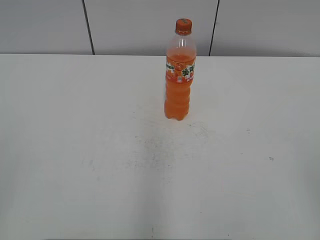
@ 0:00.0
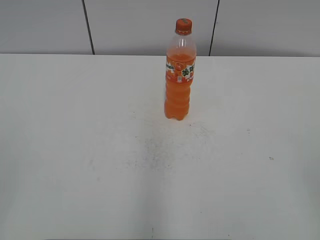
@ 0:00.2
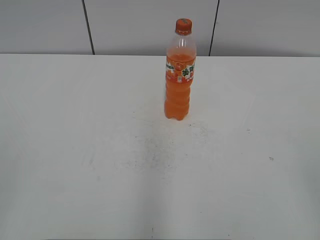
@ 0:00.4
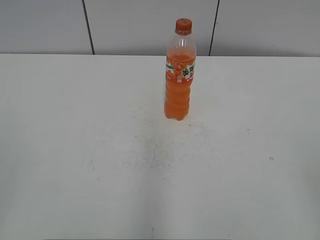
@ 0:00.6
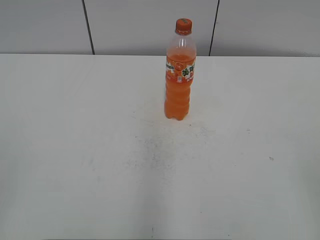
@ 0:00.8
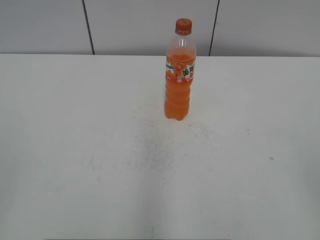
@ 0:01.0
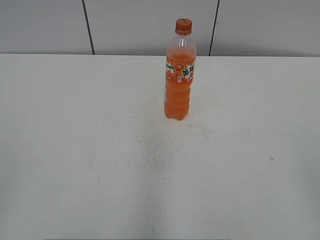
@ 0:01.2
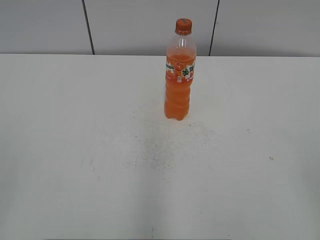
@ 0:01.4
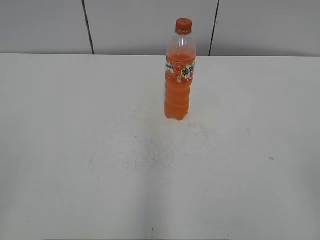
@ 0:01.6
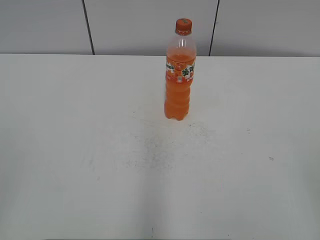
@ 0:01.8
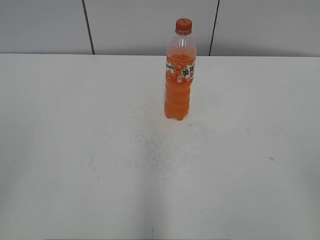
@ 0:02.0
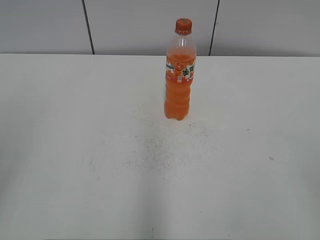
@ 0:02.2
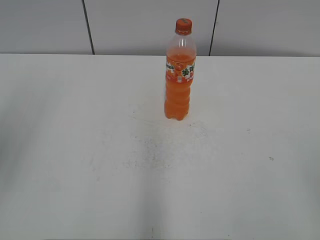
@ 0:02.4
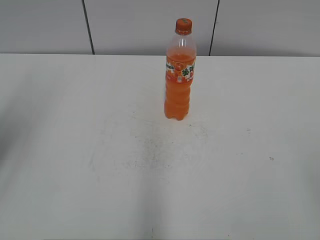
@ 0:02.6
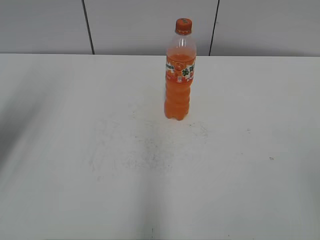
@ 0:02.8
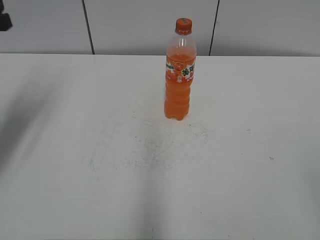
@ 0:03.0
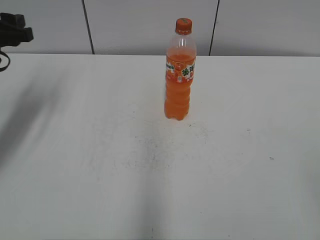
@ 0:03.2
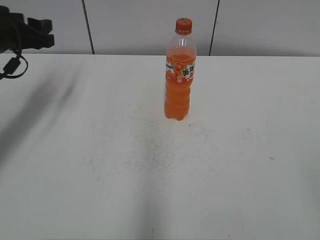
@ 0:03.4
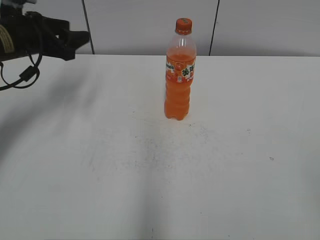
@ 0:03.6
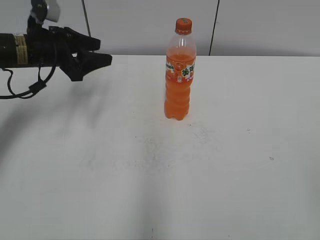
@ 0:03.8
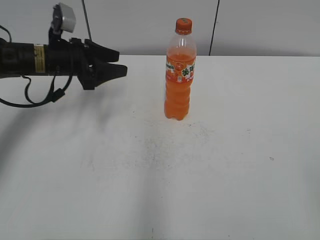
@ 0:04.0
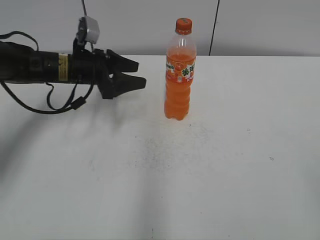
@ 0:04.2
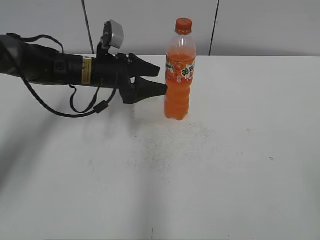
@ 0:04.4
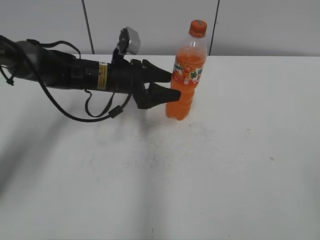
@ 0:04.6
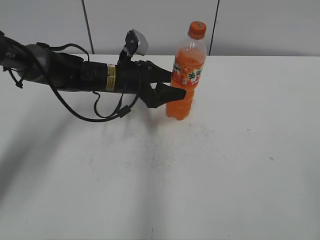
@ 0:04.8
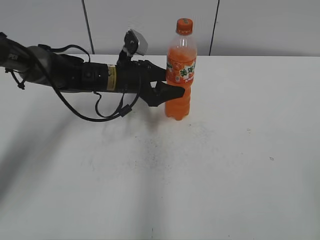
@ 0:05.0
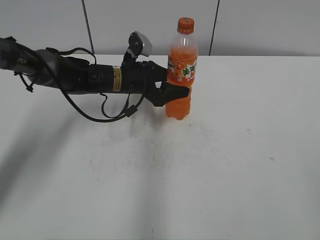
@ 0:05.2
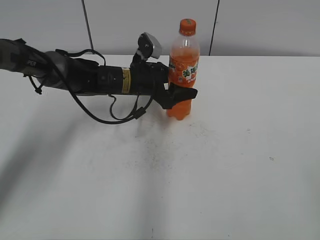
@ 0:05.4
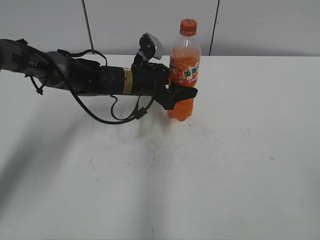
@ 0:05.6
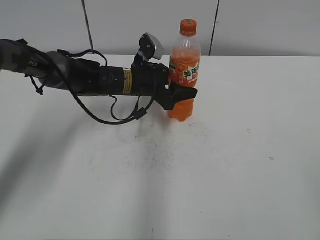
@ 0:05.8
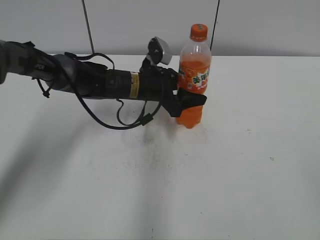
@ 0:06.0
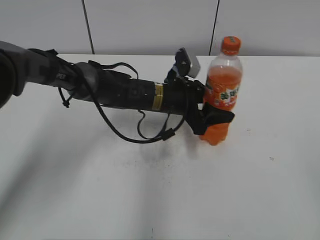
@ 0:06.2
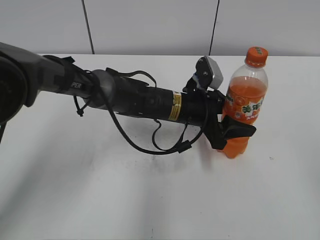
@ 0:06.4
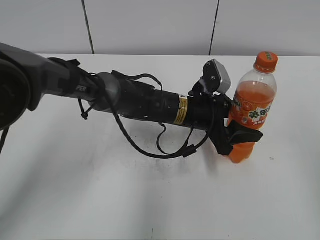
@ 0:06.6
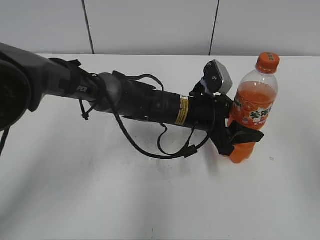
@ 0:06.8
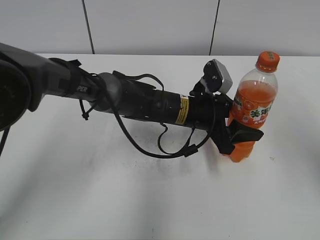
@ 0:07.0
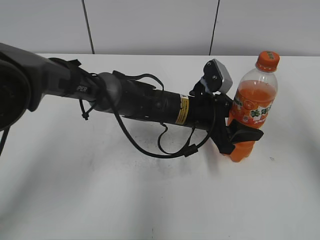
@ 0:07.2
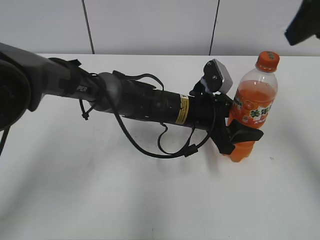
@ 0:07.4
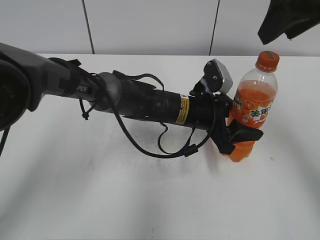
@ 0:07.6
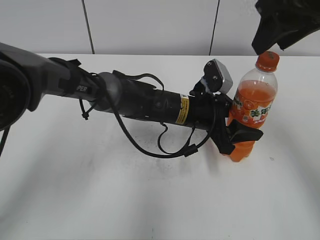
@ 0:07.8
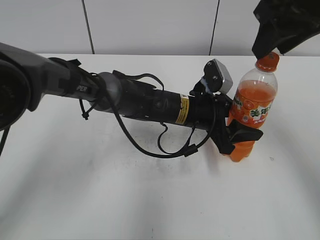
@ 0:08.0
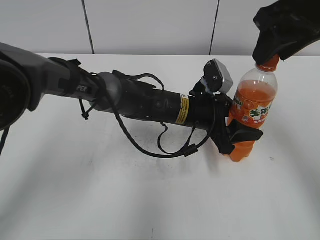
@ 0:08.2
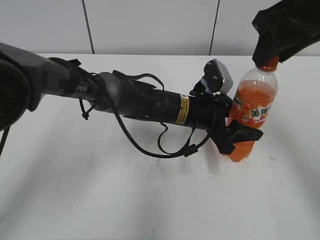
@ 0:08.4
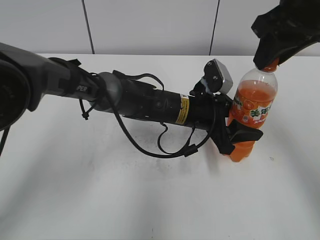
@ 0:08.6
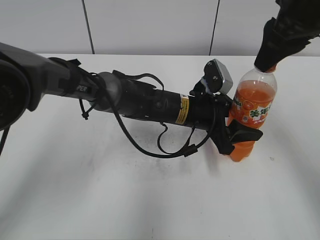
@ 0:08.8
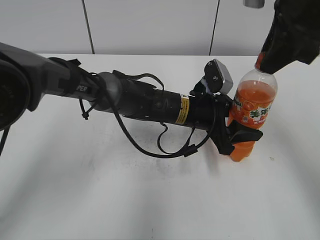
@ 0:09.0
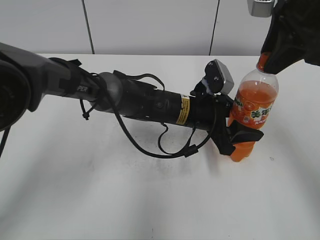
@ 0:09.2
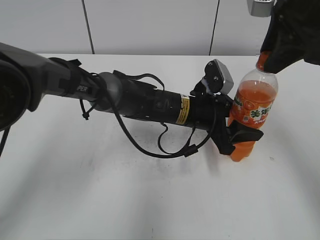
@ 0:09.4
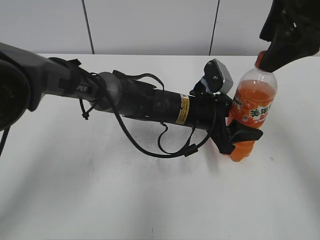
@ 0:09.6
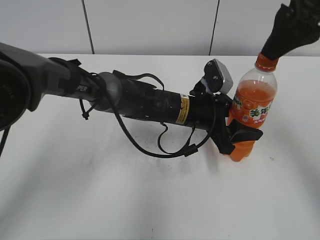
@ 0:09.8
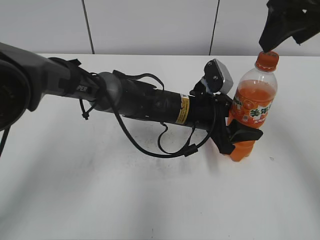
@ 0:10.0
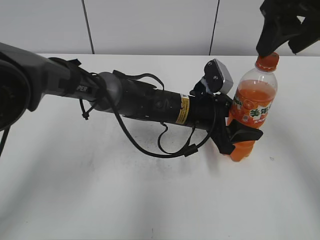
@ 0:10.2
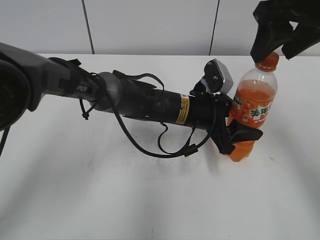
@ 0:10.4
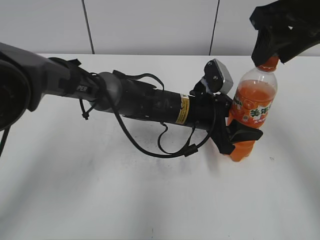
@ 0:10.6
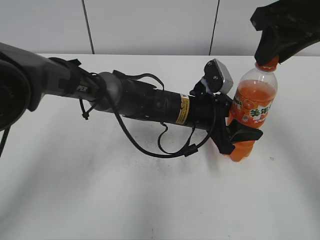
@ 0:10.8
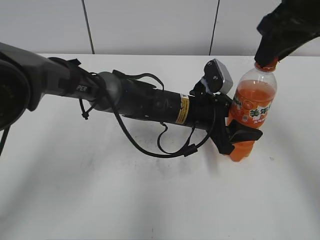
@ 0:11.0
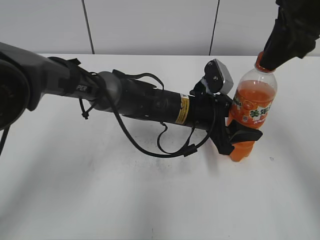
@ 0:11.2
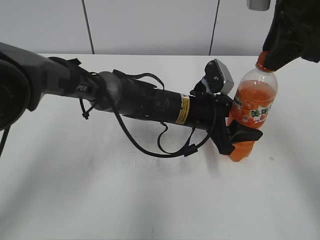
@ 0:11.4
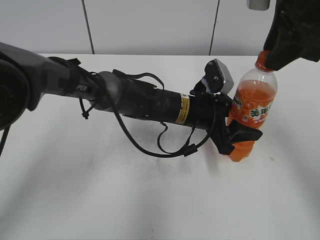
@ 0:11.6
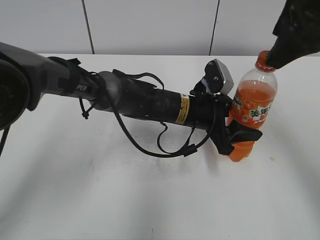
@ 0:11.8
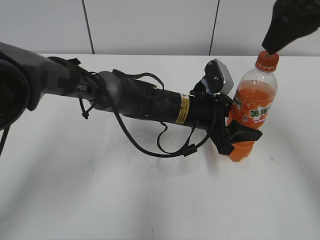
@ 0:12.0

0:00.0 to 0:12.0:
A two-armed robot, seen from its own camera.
Step, 0:00.0 to 0:05.4: Grab the Mirinda with the left hand.
Step, 0:05.6 to 0:06.8: Move the Mirinda from left to right.
0:01.6 to 0:03.0: The left gripper shifts approximately 30 cm forward.
0:03.0 to 0:04.4: The left gripper shifts some 25 cm to the right, downward and forward, and opens its fingers.
0:04.4 to 0:06.0: The left gripper heads to the right, covering about 10 cm, and closes.
0:06.0 to 0:07.6: The right gripper heads forward, covering some 30 cm. The left gripper goes roughly 10 cm to the right and backward.
0:09.0 to 0:10.4: The right gripper opens.
0:10.4 to 0:12.0: The right gripper closes, then opens again.

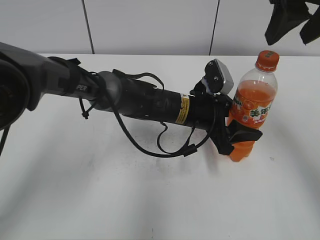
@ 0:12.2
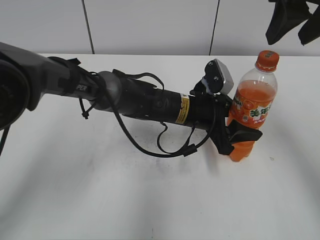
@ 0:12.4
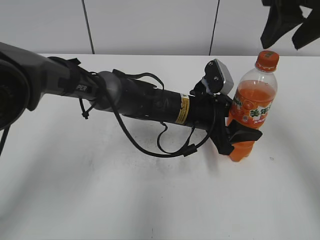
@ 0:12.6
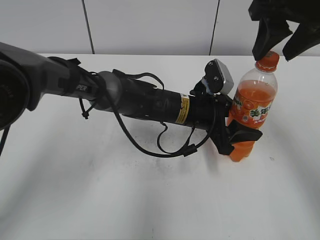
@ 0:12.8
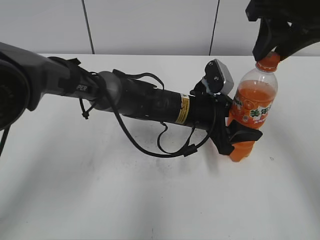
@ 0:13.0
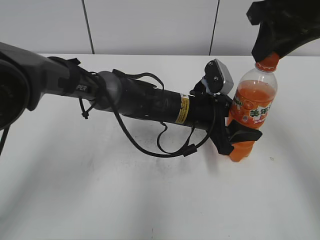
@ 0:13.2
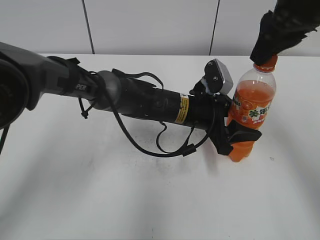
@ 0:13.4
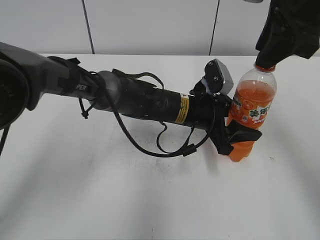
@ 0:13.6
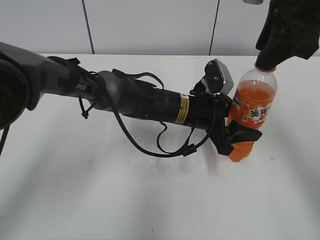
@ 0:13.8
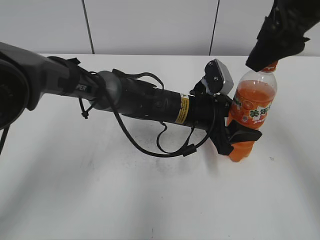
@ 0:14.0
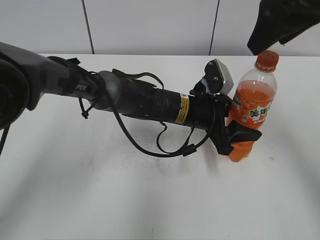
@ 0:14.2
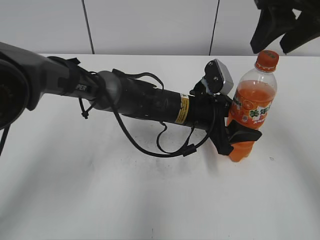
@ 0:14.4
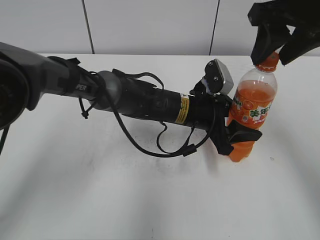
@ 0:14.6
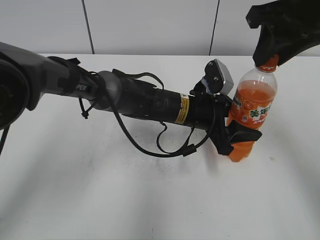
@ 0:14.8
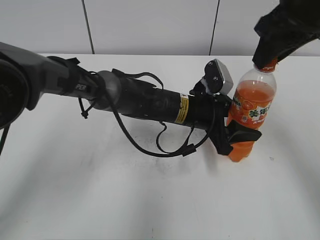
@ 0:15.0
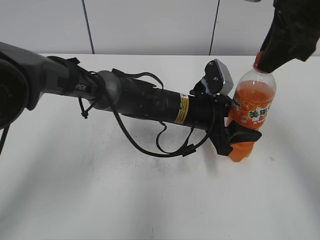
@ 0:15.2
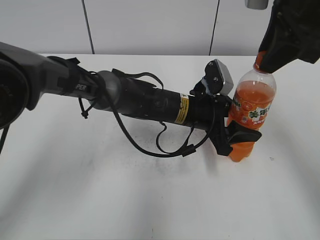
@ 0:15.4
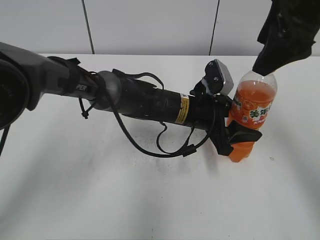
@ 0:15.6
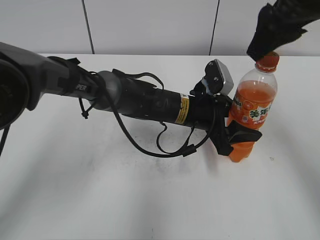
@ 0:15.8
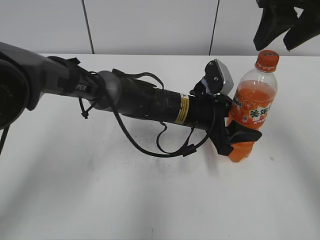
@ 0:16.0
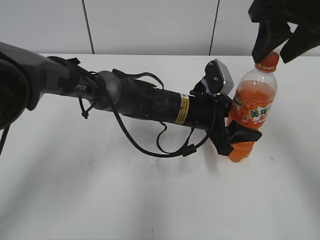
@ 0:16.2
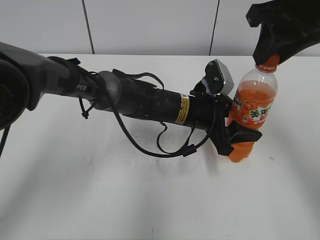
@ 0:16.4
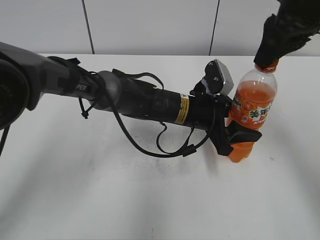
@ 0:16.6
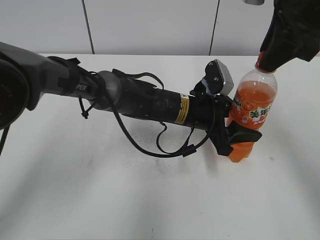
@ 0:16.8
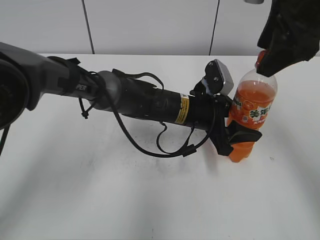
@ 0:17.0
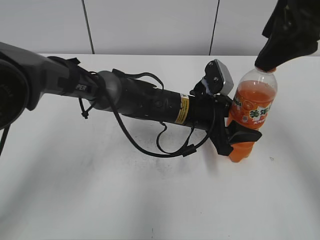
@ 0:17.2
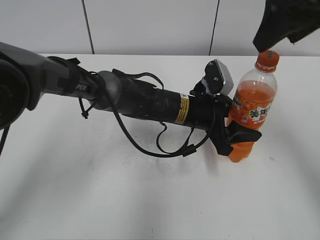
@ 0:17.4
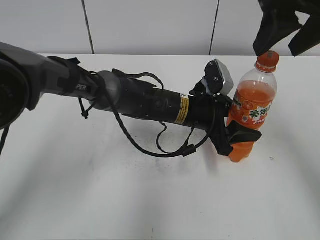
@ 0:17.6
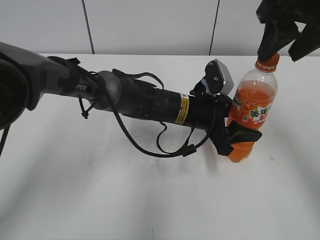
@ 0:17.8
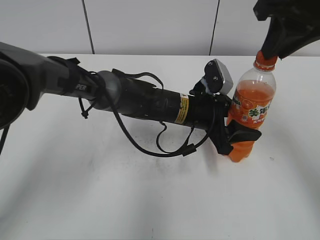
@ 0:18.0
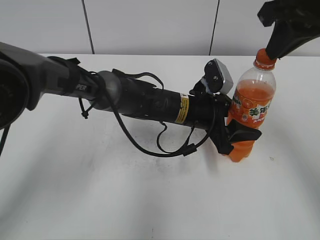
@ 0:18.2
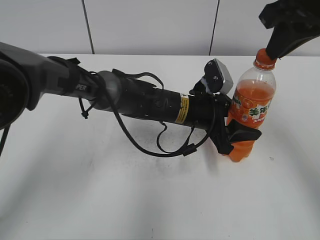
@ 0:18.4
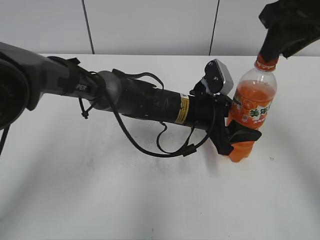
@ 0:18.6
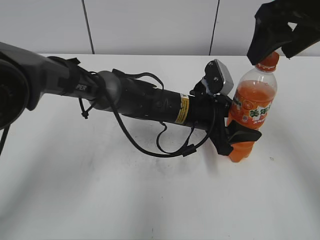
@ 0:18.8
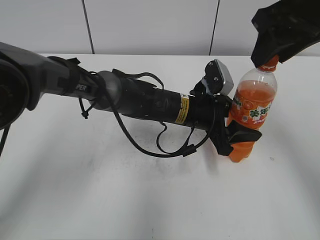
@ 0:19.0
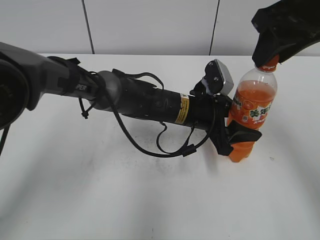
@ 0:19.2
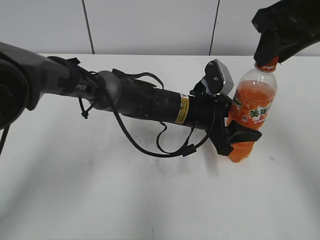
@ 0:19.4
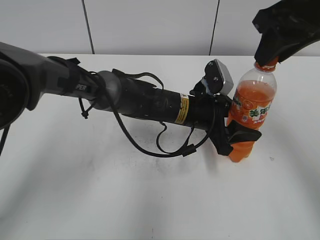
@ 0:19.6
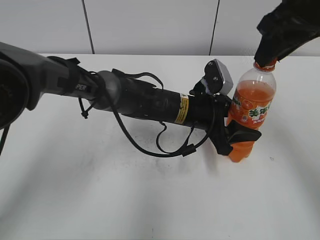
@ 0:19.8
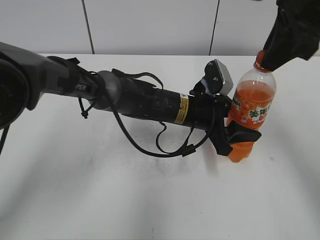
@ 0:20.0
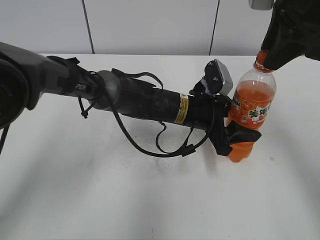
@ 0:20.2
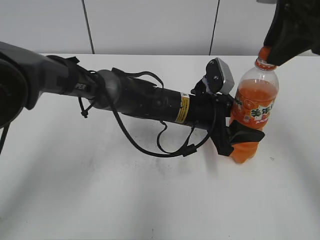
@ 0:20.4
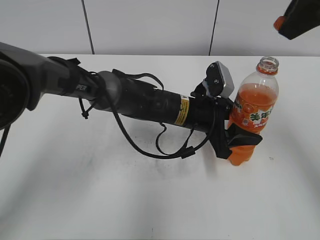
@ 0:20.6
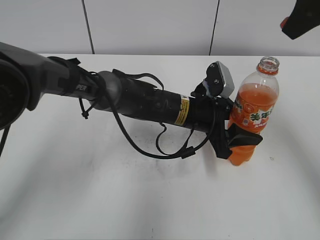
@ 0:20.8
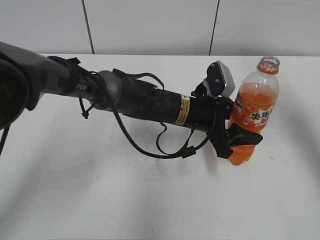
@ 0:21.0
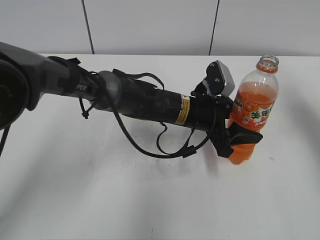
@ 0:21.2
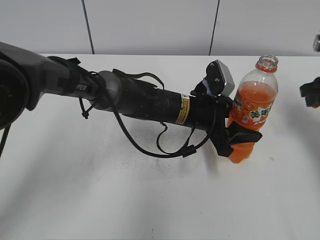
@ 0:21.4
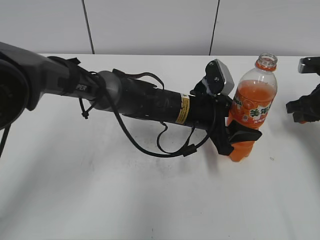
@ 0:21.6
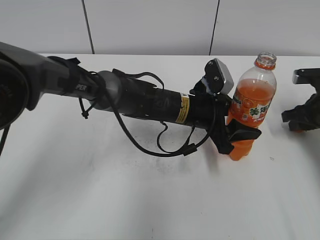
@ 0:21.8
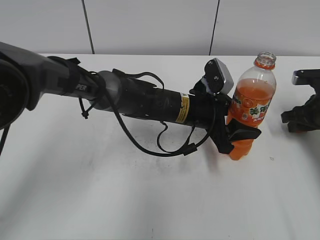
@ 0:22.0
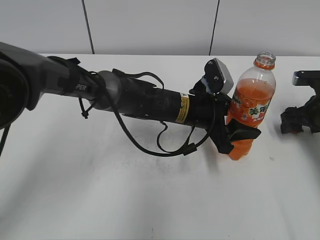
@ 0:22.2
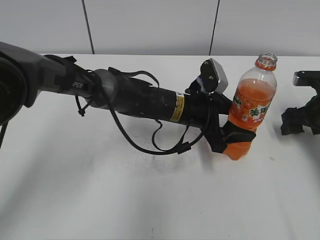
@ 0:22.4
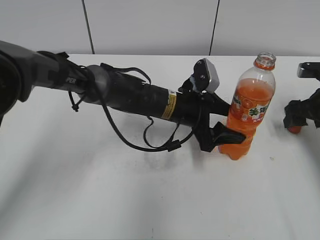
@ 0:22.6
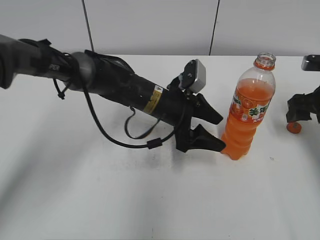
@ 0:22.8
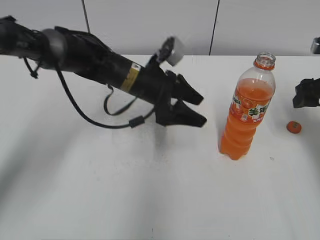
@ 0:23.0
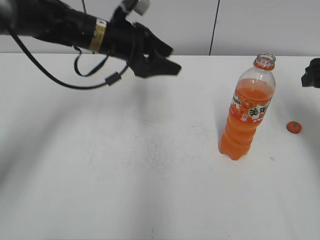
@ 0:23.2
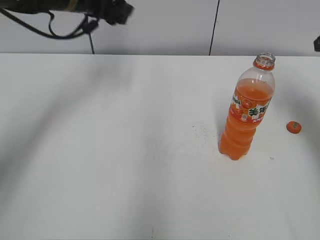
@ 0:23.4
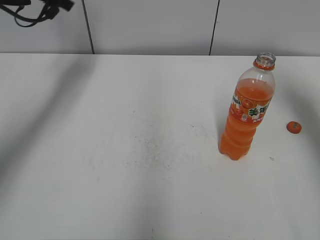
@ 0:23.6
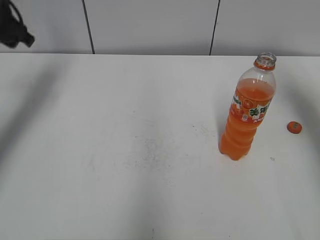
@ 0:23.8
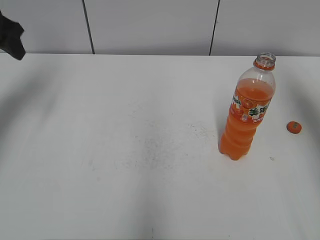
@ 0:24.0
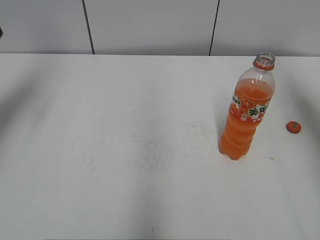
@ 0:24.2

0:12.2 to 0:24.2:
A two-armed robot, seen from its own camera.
Step, 0:20.6 to 0:22.0: Place the bottle cap on the right.
Step, 0:22.2 to 0:22.4: Place the Mirinda with the left hand.
0:13.8 to 0:15.2: The right gripper opens, then closes again.
0:15.2 to 0:16.6: The right gripper opens, then closes again.
0:16.6 to 0:18.2: The right gripper opens, then closes once more.
0:18.2 to 0:19.8: The right gripper opens and closes again.
0:19.8 to 0:21.2: The right gripper heads to the right and downward, covering about 15 cm.
0:21.2 to 0:22.6: The left gripper opens up. The right gripper is displaced downward by some 15 cm, and opens up.
0:22.6 to 0:24.2: The left gripper goes about 40 cm to the left and upward, and closes up, while the right gripper travels upward by some 25 cm.
